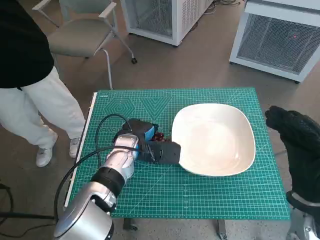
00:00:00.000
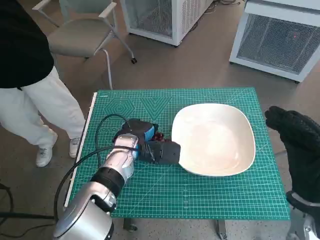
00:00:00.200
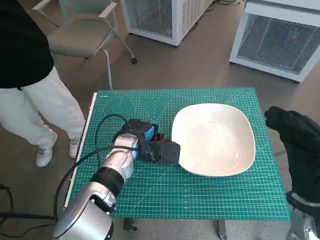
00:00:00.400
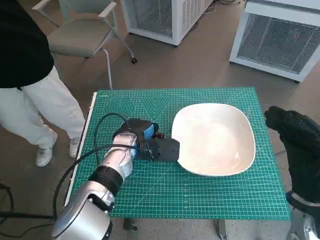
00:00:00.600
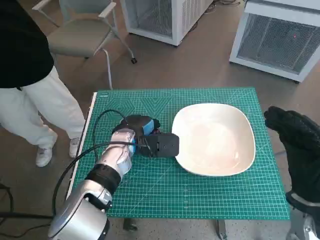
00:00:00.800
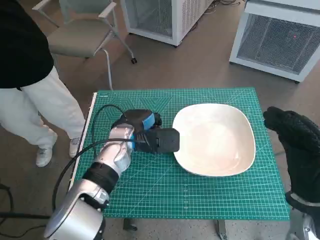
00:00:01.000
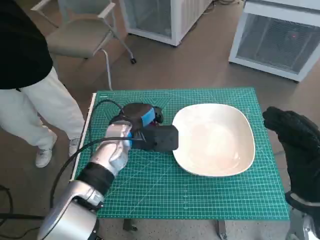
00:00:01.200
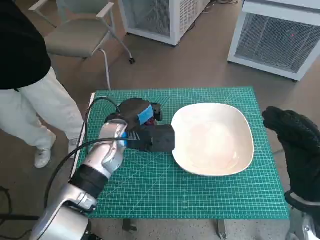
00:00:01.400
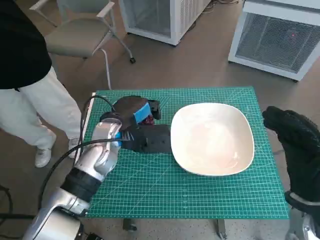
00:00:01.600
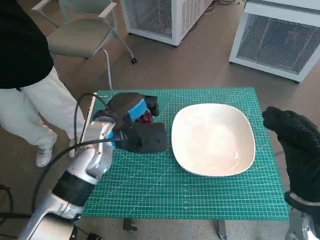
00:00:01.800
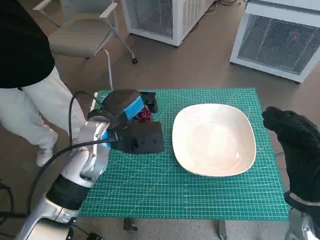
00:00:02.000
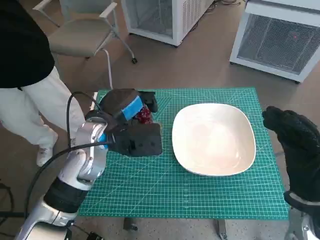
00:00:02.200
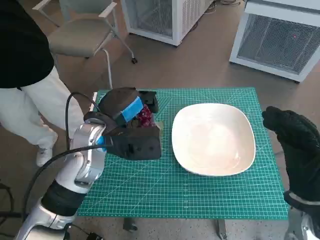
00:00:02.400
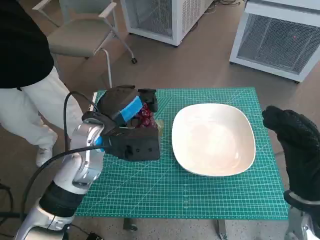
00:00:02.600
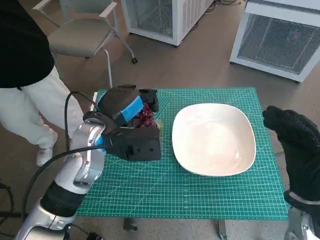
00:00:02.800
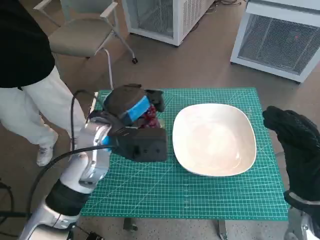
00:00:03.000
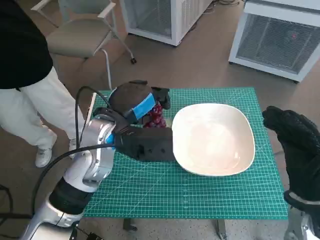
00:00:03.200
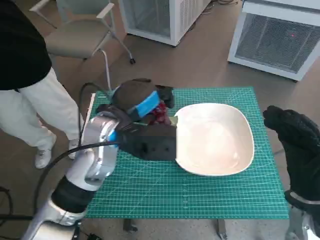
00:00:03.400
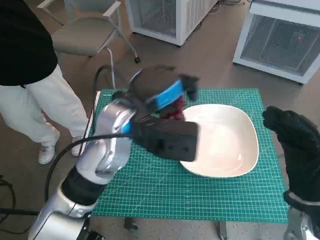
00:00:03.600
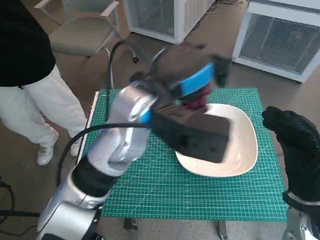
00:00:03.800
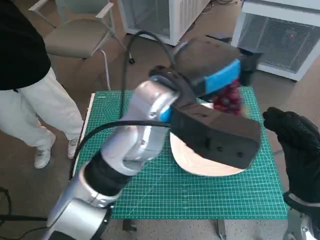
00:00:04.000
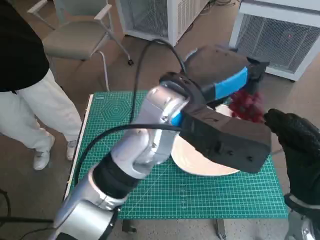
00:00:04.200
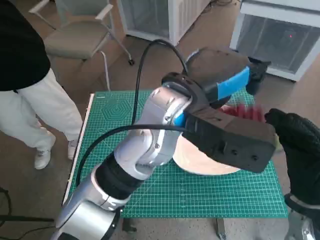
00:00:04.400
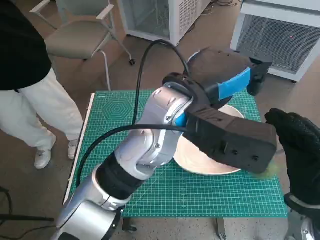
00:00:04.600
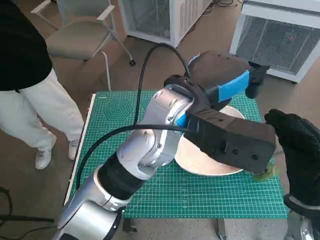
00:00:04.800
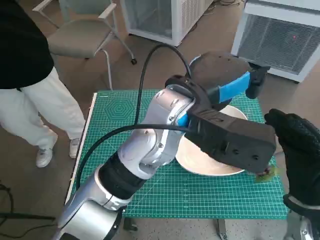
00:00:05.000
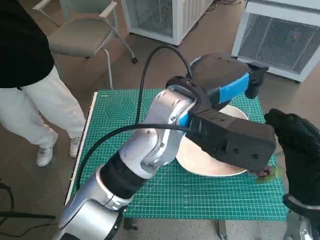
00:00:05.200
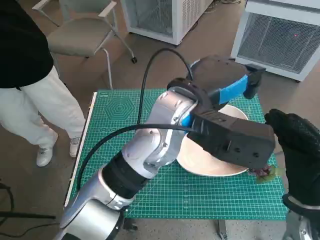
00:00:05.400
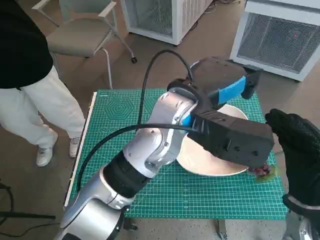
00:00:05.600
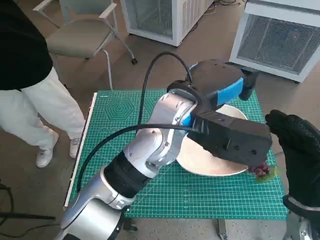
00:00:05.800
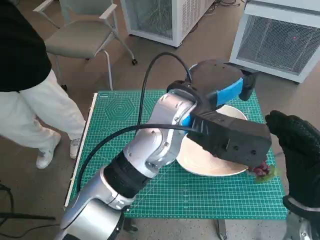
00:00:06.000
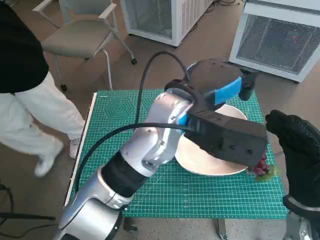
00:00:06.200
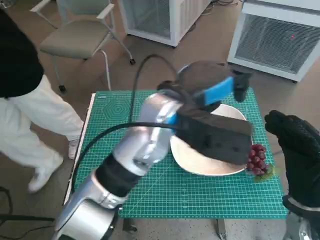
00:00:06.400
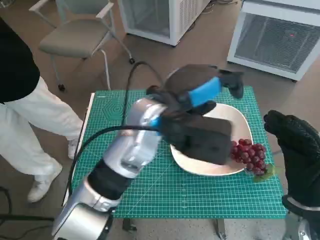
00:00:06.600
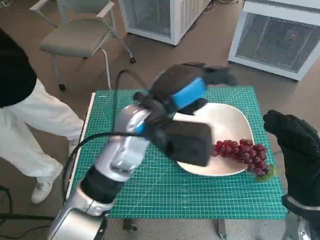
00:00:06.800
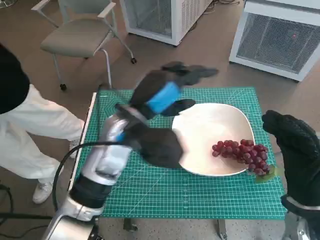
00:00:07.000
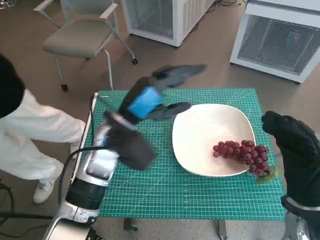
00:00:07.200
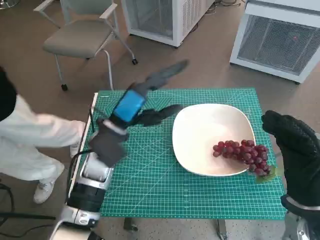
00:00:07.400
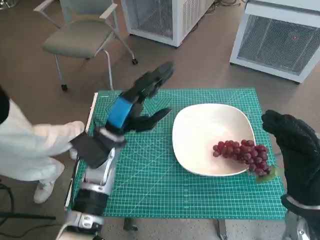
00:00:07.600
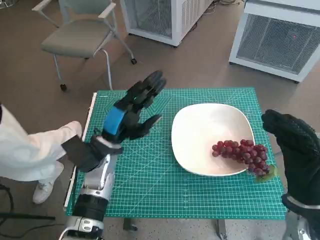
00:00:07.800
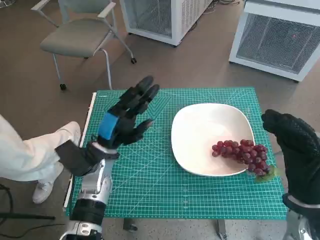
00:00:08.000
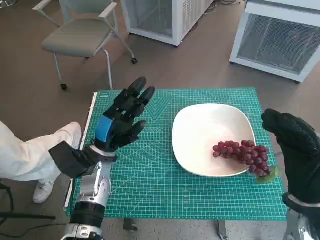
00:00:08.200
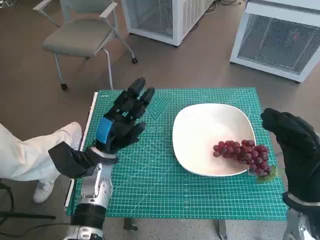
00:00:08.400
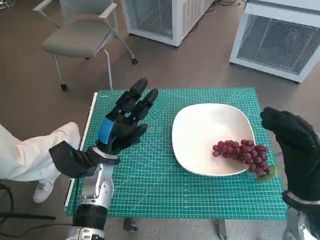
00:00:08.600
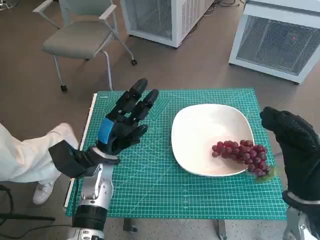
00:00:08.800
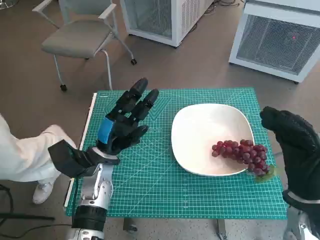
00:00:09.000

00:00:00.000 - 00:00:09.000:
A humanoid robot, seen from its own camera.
Task of the whole recording: Pick up the grapes and put them on the plate.
Step, 00:00:00.000 - 00:00:04.600: Place the grapes in the plate with left hand.
00:00:00.000 - 00:00:01.600: The left hand heads upward, covering approximately 5 cm.
00:00:01.600 - 00:00:03.000: The left hand changes place by approximately 5 cm.
00:00:03.000 - 00:00:04.400: The left hand shifts roughly 15 cm to the right and upward.
00:00:06.000 - 00:00:07.600: The left hand is displaced to the left and downward by about 20 cm.
00:00:07.600 - 00:00:09.000: The left hand goes about 5 cm downward.

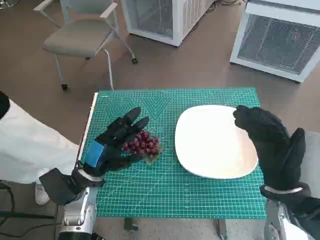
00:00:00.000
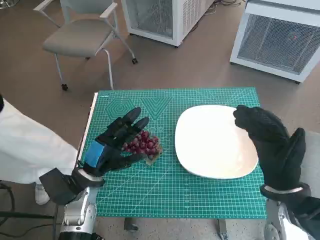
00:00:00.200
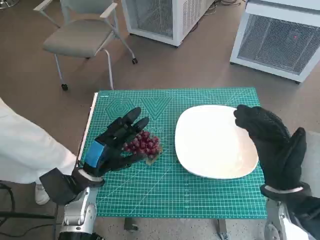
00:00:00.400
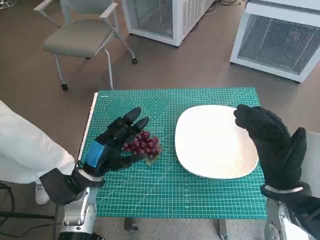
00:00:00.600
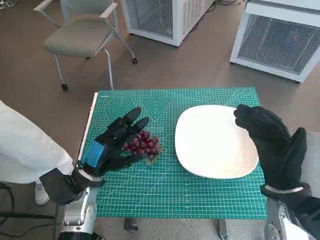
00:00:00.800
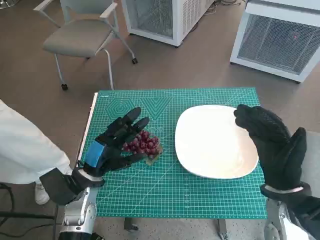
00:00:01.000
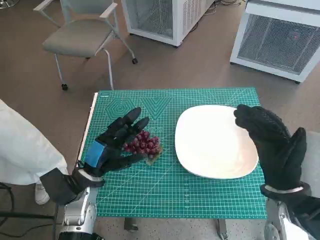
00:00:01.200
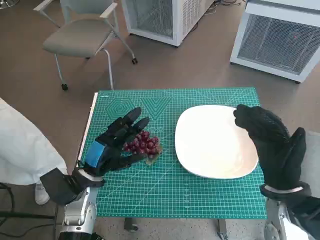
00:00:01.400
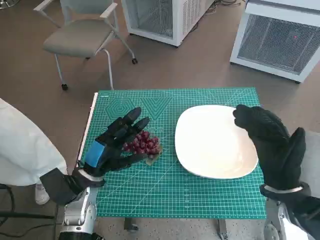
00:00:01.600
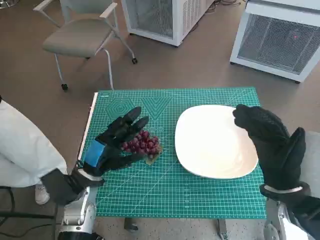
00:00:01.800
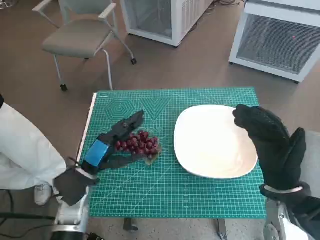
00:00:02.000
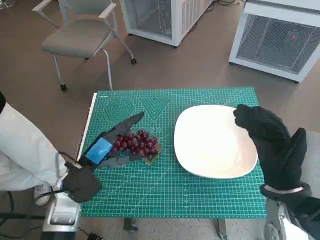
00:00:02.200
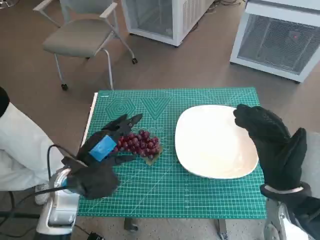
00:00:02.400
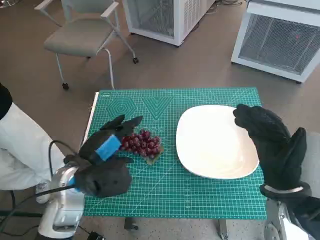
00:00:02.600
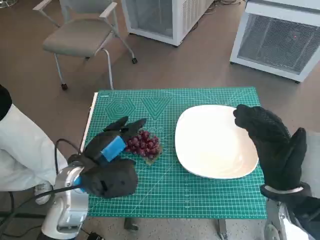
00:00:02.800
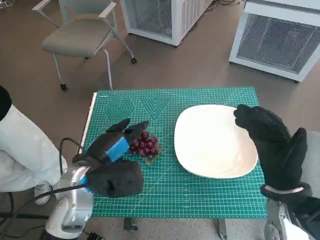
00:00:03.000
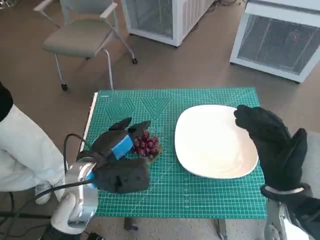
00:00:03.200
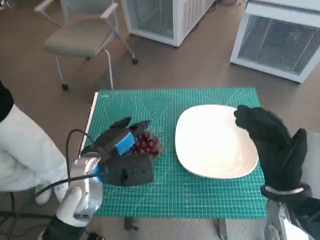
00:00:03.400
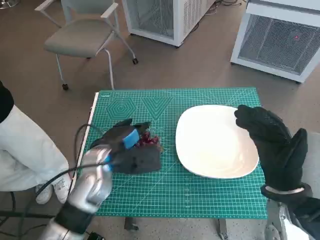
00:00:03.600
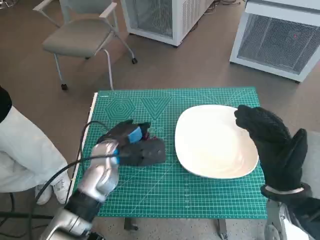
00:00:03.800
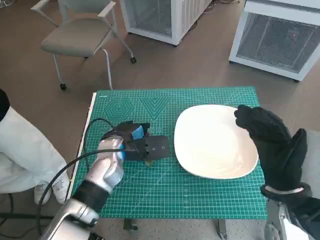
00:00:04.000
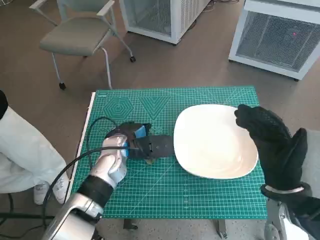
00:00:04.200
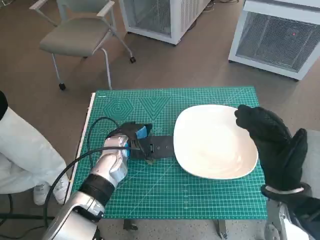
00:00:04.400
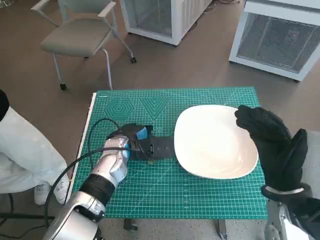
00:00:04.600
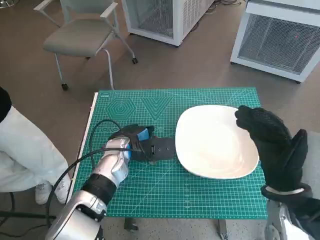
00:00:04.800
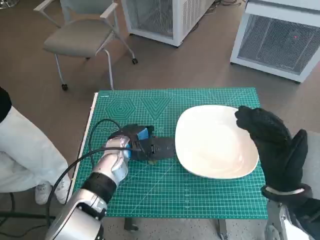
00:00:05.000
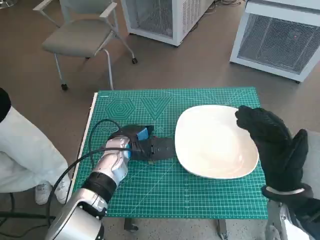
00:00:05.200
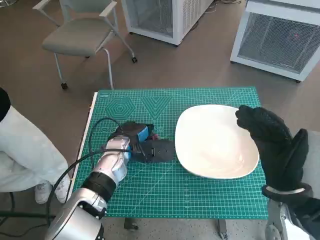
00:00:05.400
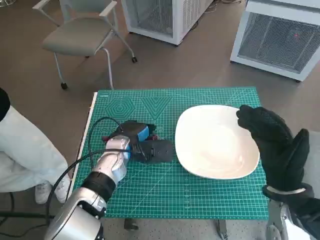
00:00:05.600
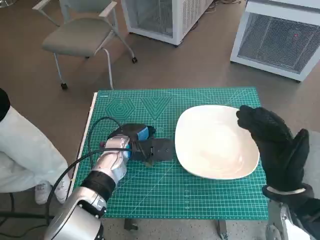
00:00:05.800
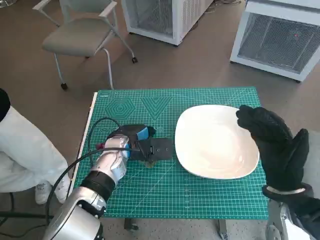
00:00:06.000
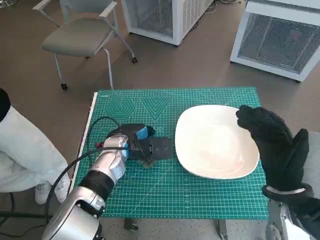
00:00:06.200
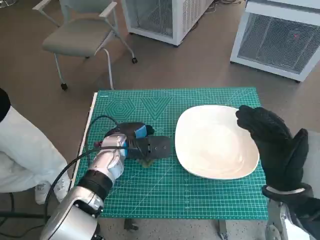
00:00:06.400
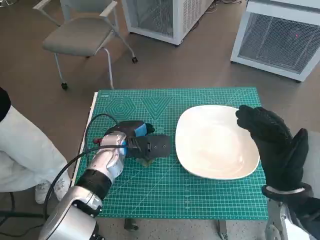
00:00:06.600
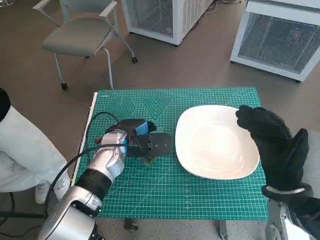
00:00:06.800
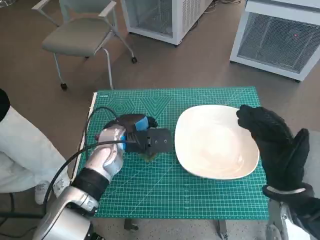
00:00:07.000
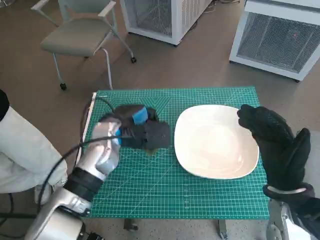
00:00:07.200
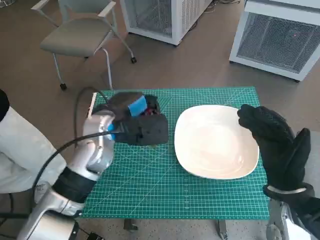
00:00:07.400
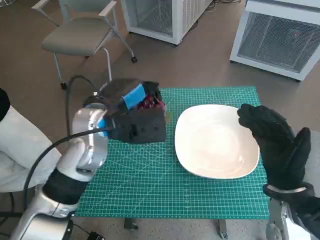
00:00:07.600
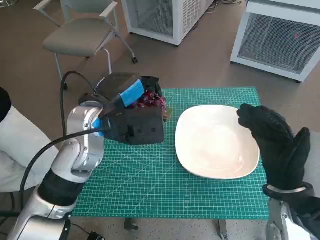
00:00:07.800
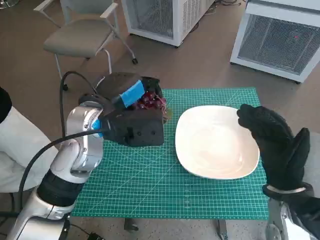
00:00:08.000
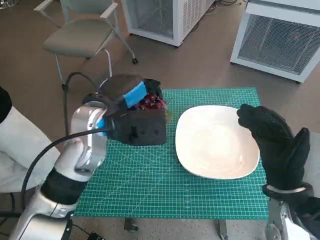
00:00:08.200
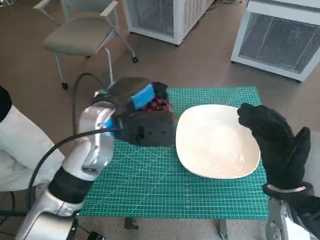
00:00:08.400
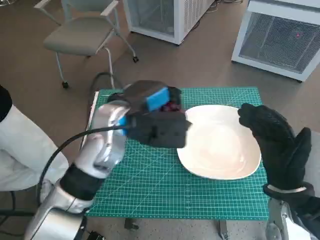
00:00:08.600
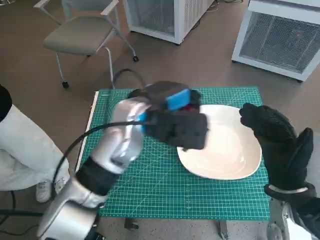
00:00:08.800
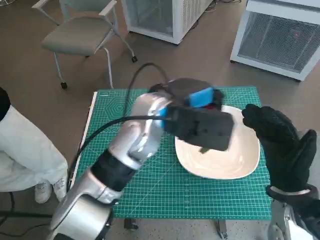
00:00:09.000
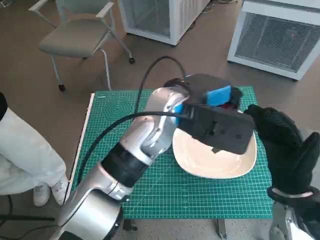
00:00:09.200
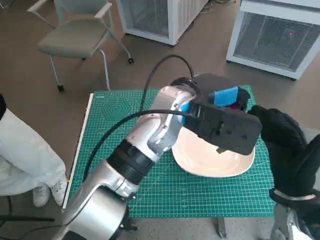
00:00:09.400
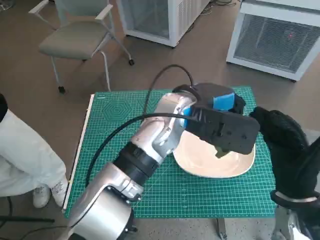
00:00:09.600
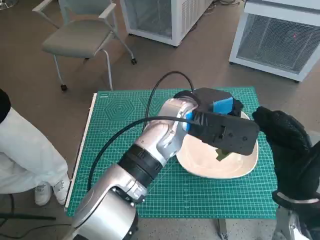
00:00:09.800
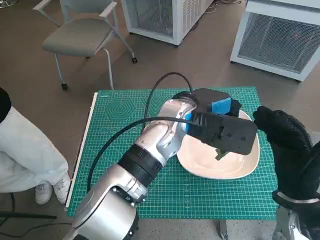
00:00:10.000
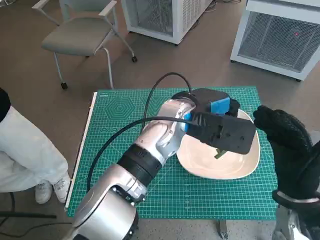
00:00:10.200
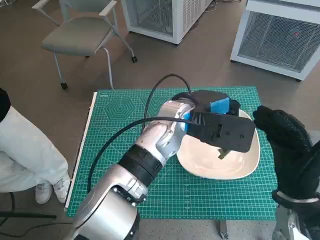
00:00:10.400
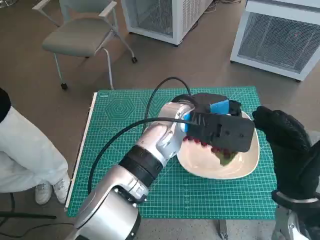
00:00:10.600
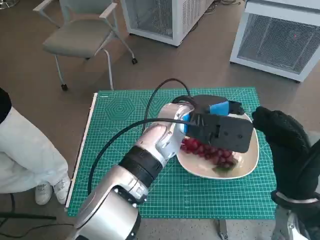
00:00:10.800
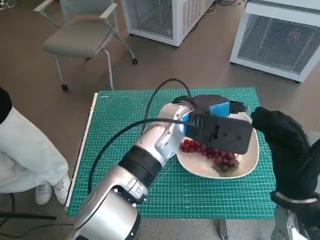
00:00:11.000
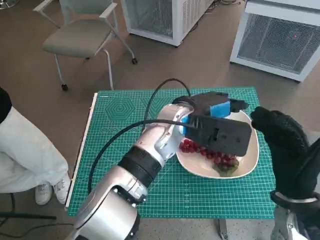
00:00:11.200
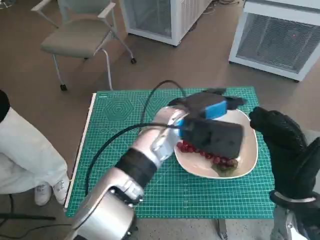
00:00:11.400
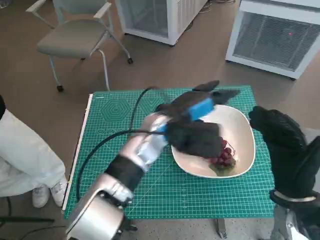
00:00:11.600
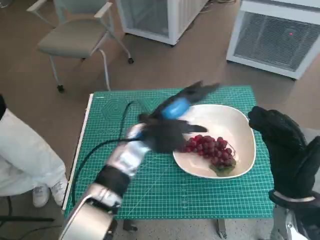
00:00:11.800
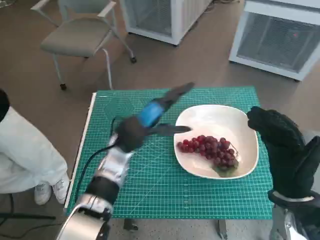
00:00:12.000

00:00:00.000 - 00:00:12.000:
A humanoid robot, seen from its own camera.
Task of the whole recording: Pick up the grapes and put them on the plate.
Step, 00:00:00.000 - 00:00:05.200: Grasp the grapes with left hand.
Step, 00:00:05.400 - 00:00:10.600: Place the grapes in the plate with left hand.
00:00:01.600 - 00:00:03.000: The left hand shifts some 5 cm upward.
00:00:03.000 - 00:00:04.400: The left hand travels forward by about 10 cm.
00:00:04.400 - 00:00:06.000: The hands move only a little.
00:00:06.000 - 00:00:07.600: The left hand is displaced upward by roughly 10 cm.
00:00:07.600 - 00:00:09.000: The left hand goes approximately 10 cm to the right.
00:00:09.000 - 00:00:10.400: The left hand moves about 5 cm.
00:00:10.400 - 00:00:12.000: The left hand moves to the left and downward, roughly 15 cm.

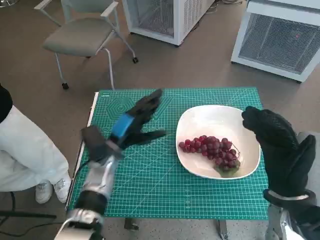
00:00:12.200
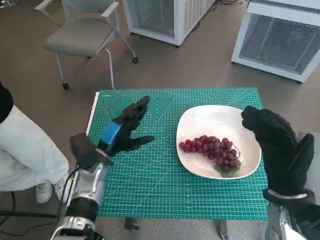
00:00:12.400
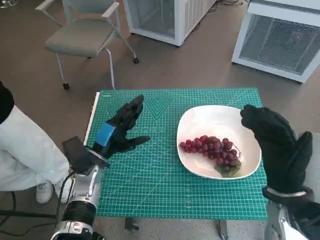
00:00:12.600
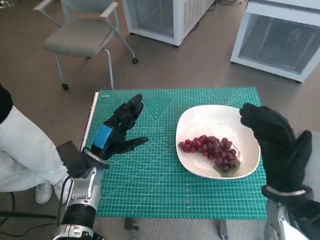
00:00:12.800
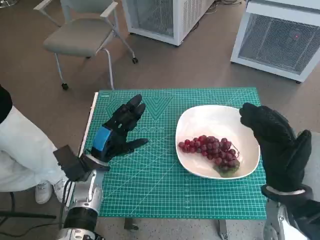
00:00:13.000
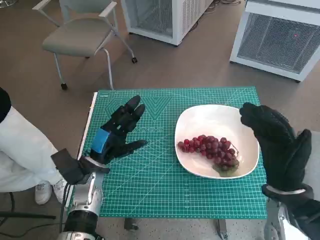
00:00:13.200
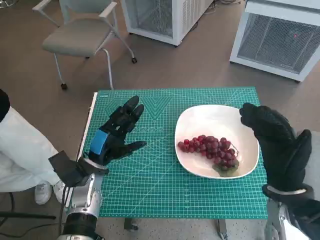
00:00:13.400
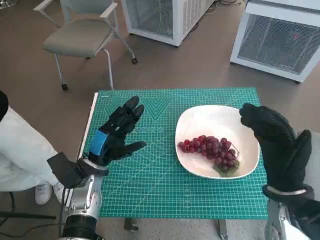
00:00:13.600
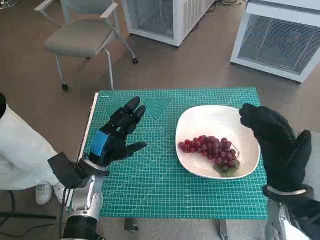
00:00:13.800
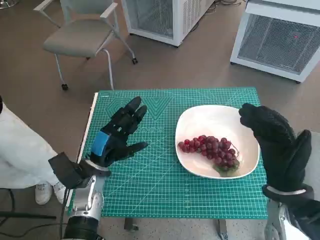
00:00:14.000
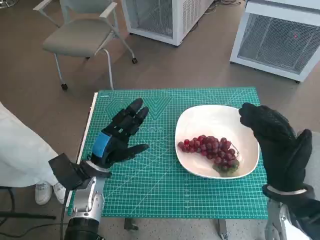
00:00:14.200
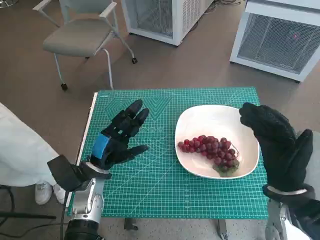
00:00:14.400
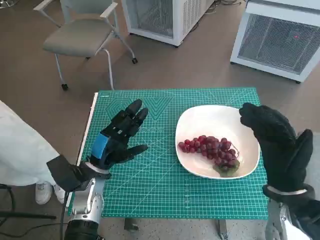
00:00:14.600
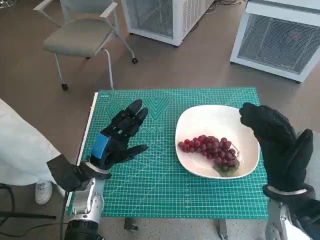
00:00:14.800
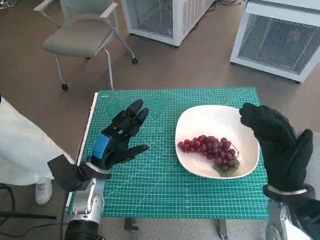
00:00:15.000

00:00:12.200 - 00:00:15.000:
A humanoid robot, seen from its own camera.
Task of the whole recording: Pick up the grapes and put them on the plate.
00:00:12.200 - 00:00:13.600: The left hand shifts roughly 5 cm to the left.
00:00:13.600 - 00:00:15.000: The two hands keep their place.
